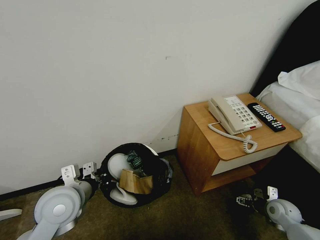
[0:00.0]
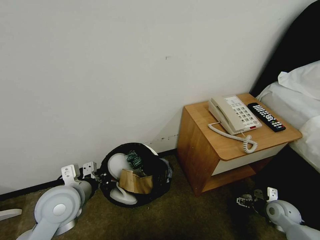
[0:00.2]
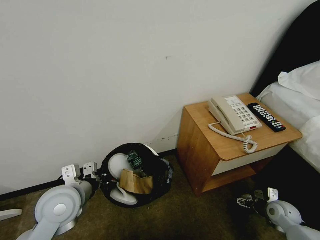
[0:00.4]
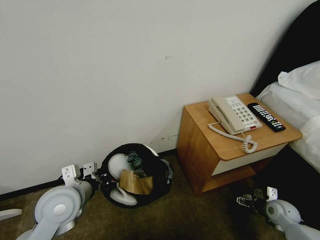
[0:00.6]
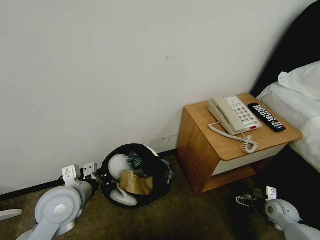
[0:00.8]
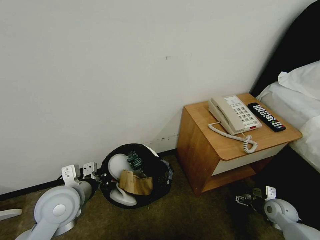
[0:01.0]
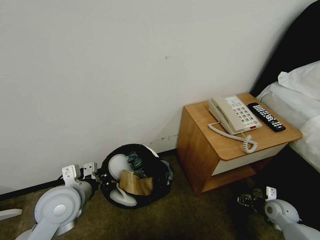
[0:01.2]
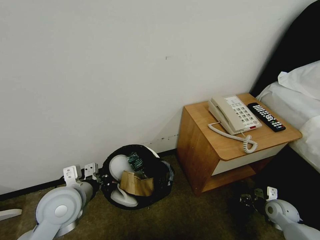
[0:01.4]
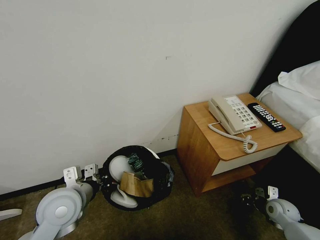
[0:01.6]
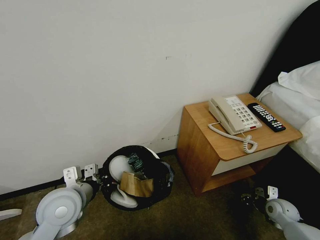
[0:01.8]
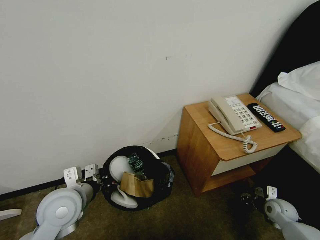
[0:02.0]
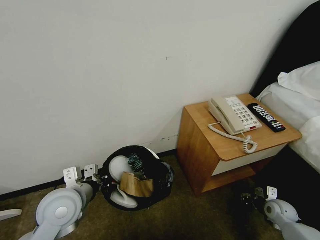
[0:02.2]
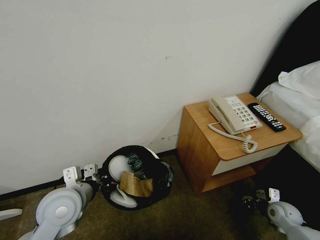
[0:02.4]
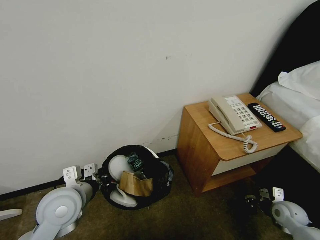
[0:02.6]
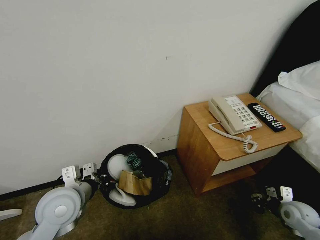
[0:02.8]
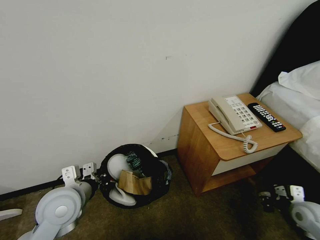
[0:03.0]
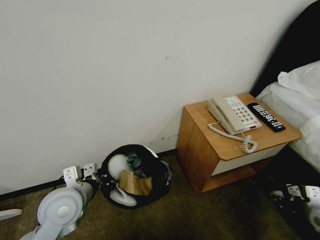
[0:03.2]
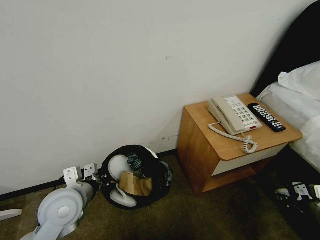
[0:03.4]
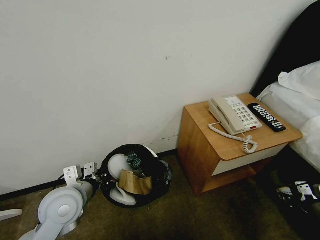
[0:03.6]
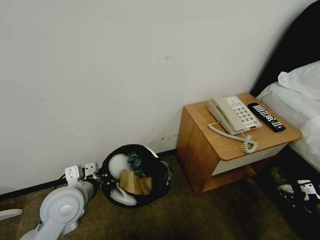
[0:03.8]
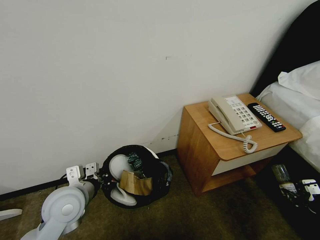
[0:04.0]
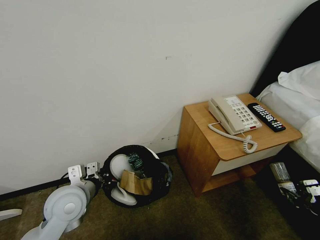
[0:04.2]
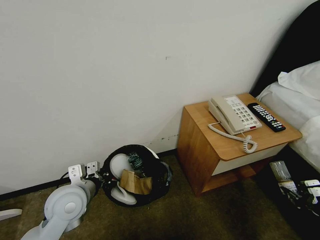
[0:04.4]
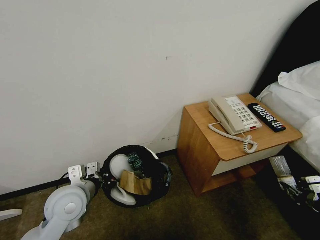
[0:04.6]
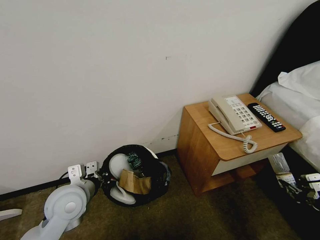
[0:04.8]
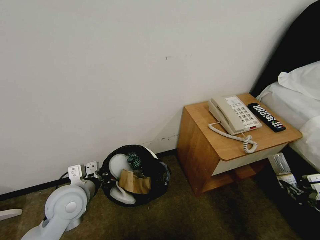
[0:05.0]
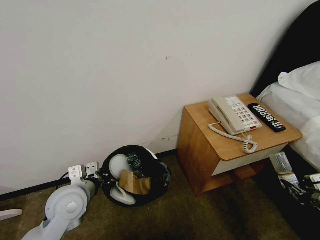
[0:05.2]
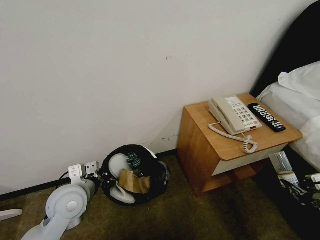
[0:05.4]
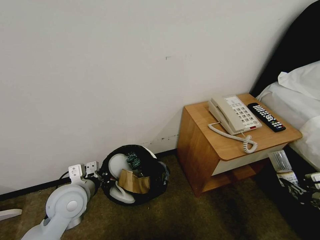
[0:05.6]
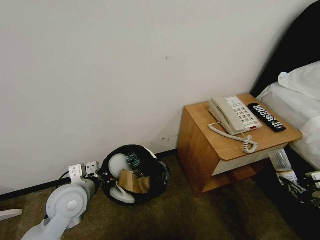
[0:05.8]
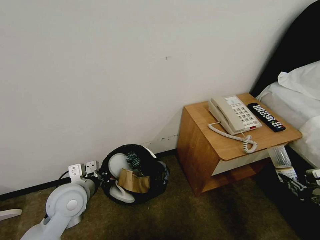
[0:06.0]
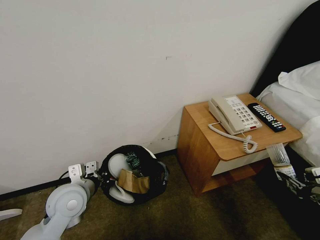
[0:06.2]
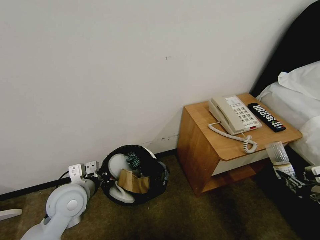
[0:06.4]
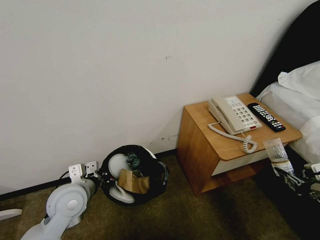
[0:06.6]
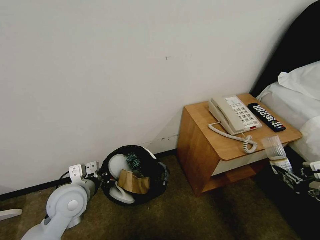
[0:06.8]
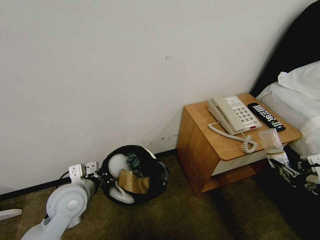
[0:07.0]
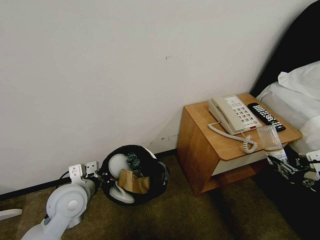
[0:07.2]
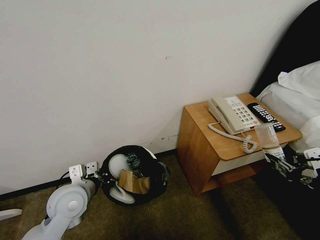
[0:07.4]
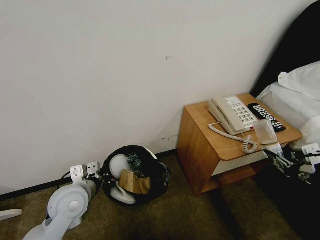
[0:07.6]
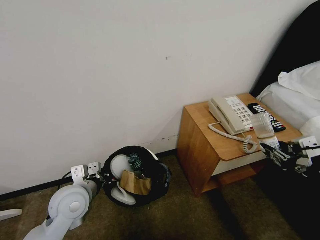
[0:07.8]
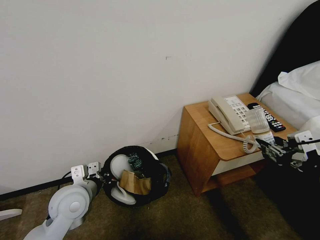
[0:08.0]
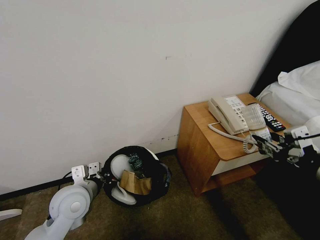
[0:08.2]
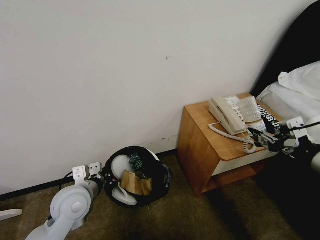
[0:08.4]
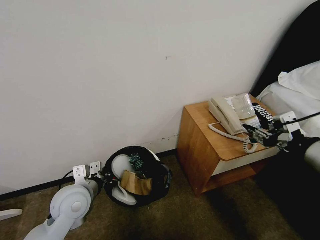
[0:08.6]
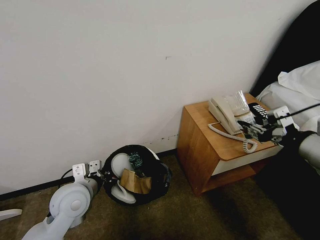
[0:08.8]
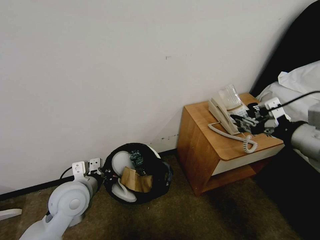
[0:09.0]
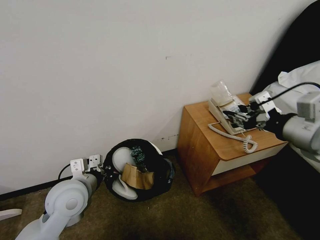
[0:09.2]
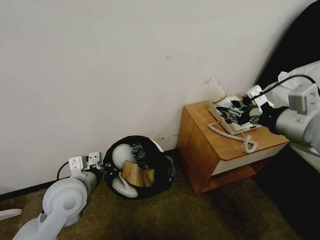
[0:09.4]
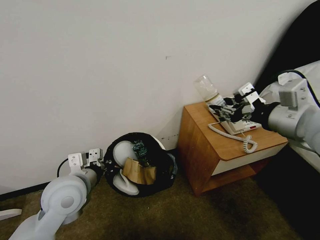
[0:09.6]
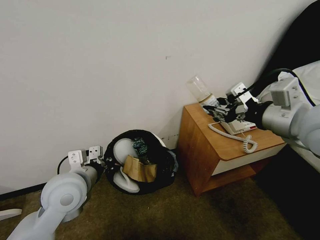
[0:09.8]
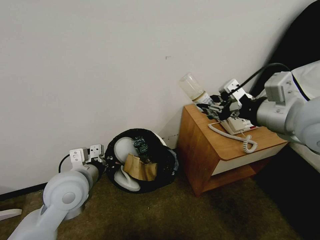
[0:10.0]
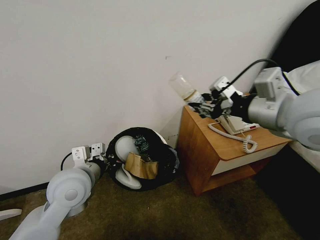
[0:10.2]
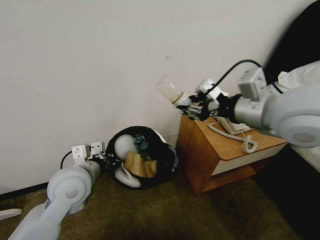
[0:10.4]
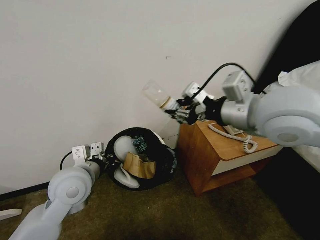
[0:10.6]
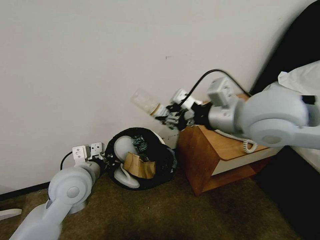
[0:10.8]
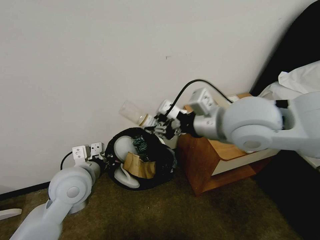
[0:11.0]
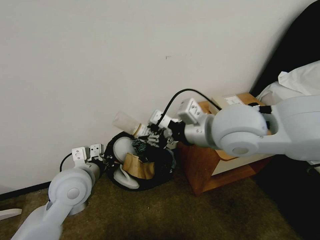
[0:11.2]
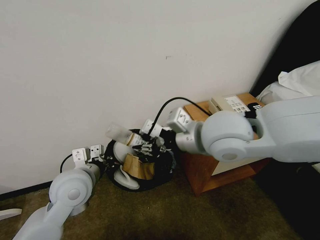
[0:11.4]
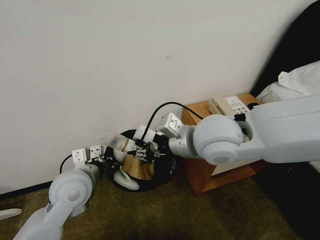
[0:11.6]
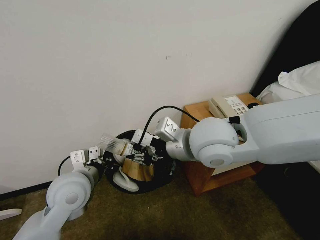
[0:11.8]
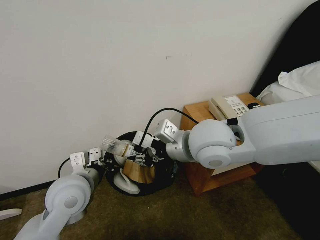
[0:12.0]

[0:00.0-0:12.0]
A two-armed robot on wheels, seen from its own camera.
Task of the whole recording: Pick up the trash bin, then pick up the garbage from the floor and place it into the trash bin.
0:00.0 to 0:01.6: The right gripper closes its fingers.
0:01.6 to 0:03.0: The right gripper goes about 10 cm upward.
0:03.0 to 0:04.4: The right gripper is displaced upward and backward by roughly 15 cm.
0:04.4 to 0:06.0: The right gripper shifts approximately 5 cm upward.
0:06.0 to 0:07.6: The right gripper is displaced upward by about 5 cm.
0:07.6 to 0:09.0: The right gripper moves forward and upward, some 10 cm.
0:09.0 to 0:10.4: The left gripper heads upward, covering approximately 5 cm, while the right gripper goes approximately 15 cm to the left, upward and forward.
0:10.4 to 0:12.0: The right gripper goes some 15 cm to the left and downward.

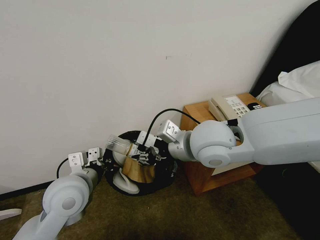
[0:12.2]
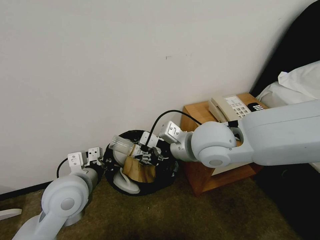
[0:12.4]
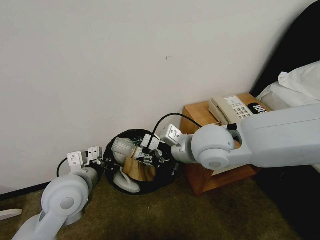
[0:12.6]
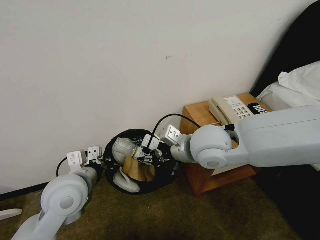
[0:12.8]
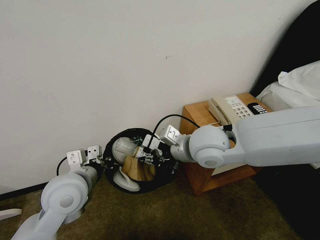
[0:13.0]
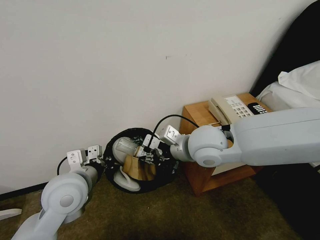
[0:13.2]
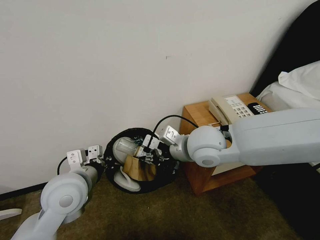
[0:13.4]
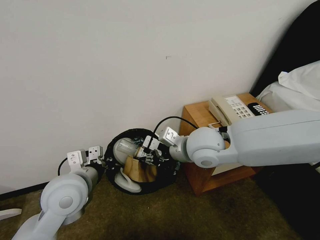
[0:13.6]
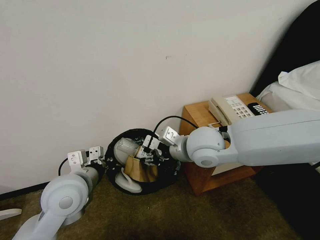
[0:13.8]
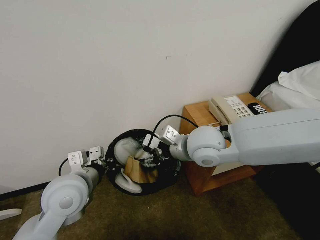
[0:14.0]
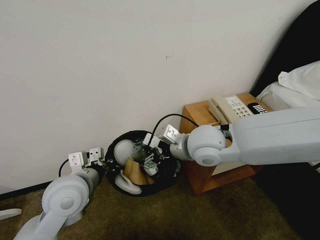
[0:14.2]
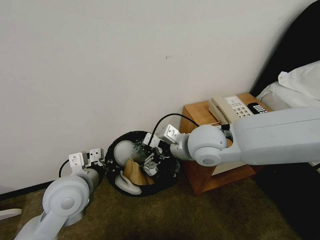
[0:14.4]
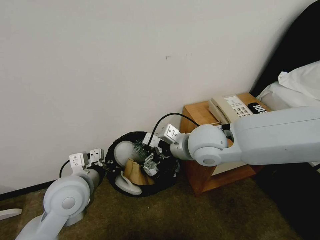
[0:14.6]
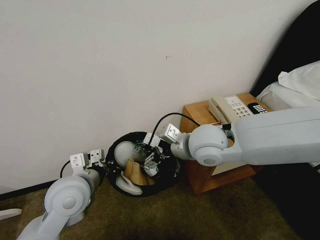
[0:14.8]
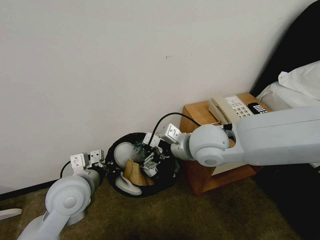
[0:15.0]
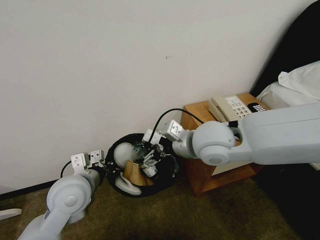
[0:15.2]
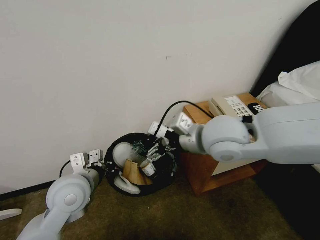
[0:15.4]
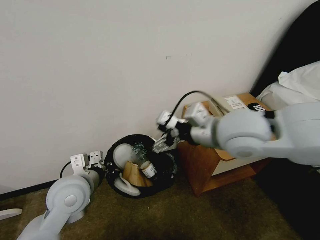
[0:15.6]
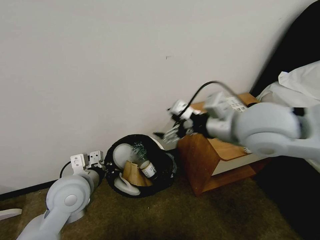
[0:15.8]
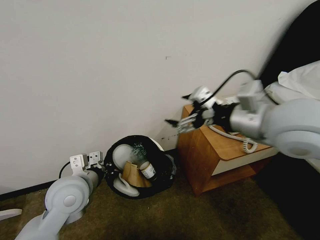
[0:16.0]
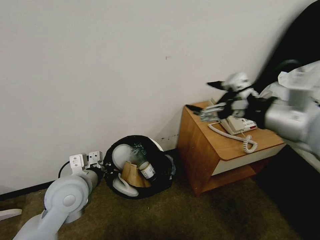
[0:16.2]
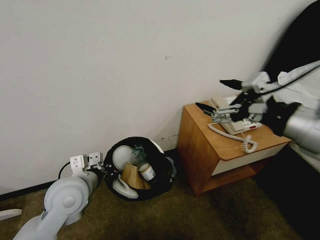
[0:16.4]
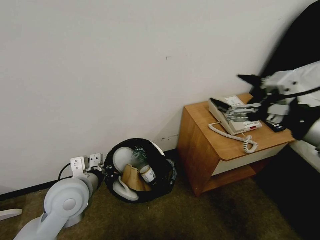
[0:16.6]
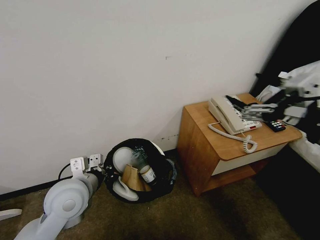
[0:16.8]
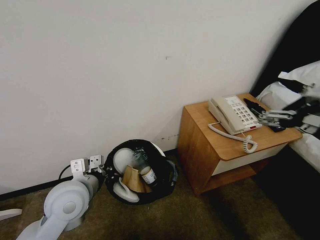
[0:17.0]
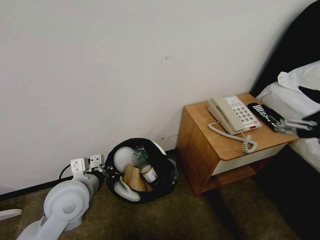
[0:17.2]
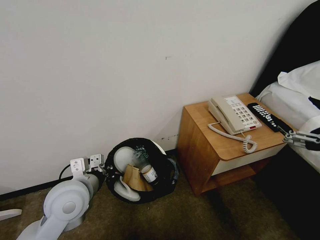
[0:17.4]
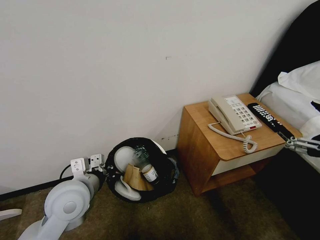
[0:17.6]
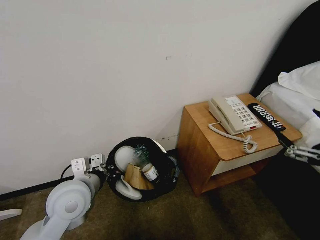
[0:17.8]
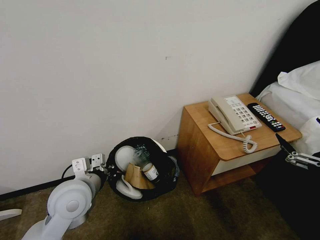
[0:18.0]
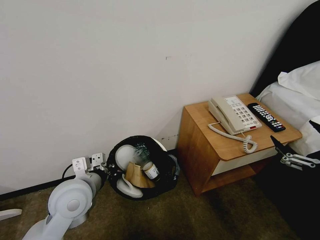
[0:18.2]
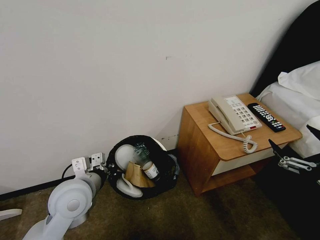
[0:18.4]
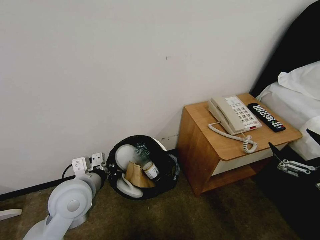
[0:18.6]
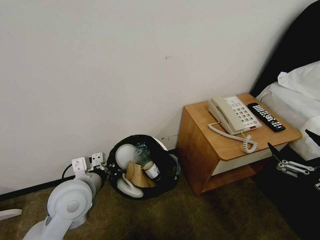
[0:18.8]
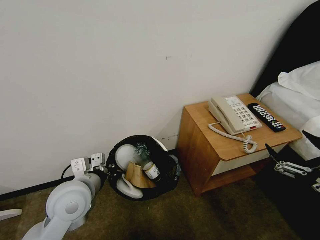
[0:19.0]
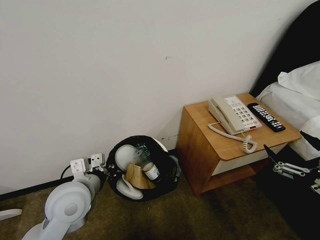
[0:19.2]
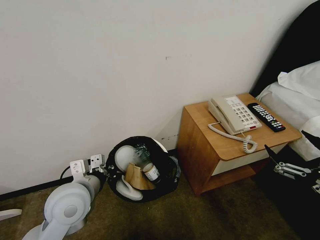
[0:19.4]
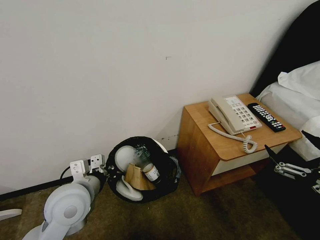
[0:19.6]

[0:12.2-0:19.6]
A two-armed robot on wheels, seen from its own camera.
Task of the whole recording: Pick up the trash bin, then pick up the garbage from the floor and place it into the trash bin.
0:12.2 to 0:13.6: The right gripper shifts by approximately 5 cm.
0:13.6 to 0:15.2: The right gripper opens up.
0:15.2 to 0:16.6: The right gripper goes some 25 cm to the right, backward and upward.
0:16.6 to 0:18.2: The right gripper moves downward, backward and to the right, roughly 20 cm.
0:18.2 to 0:19.6: The grippers stay close to where they were, moving slightly.
